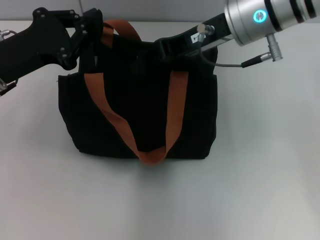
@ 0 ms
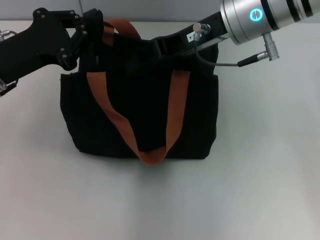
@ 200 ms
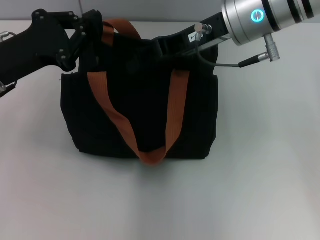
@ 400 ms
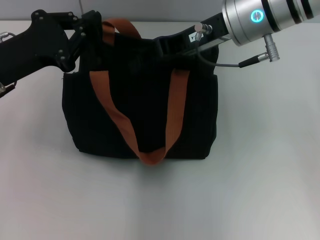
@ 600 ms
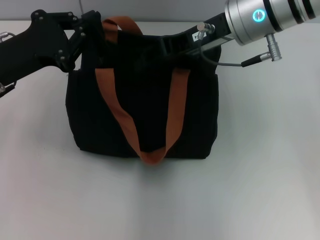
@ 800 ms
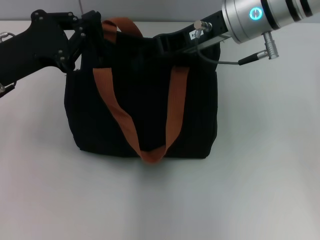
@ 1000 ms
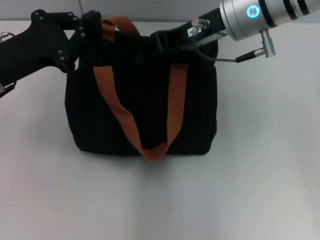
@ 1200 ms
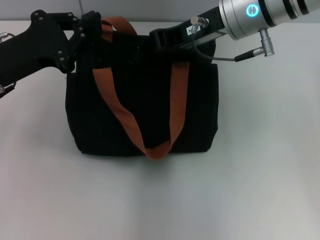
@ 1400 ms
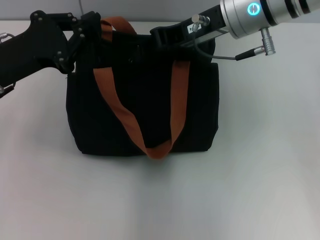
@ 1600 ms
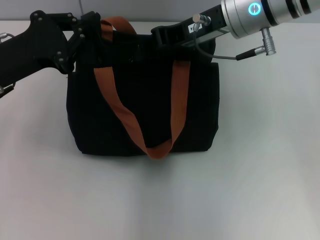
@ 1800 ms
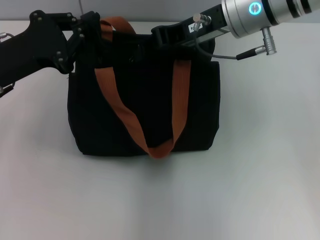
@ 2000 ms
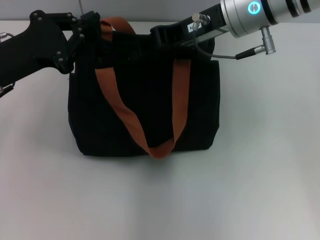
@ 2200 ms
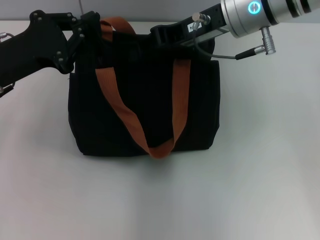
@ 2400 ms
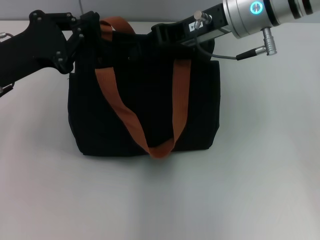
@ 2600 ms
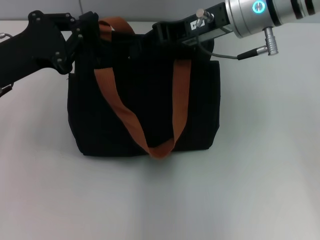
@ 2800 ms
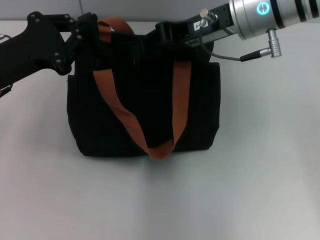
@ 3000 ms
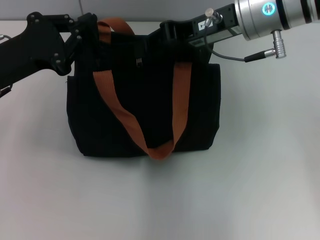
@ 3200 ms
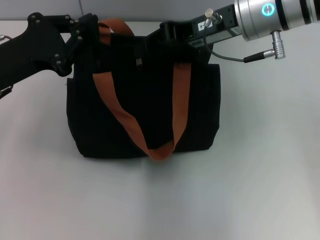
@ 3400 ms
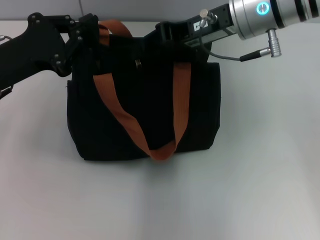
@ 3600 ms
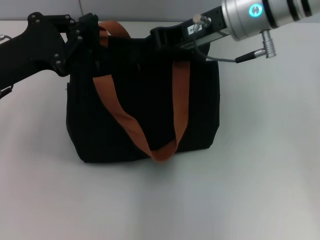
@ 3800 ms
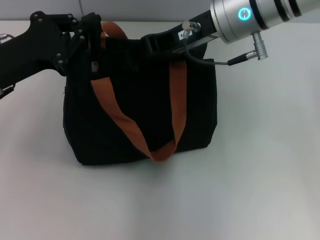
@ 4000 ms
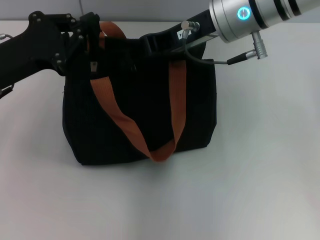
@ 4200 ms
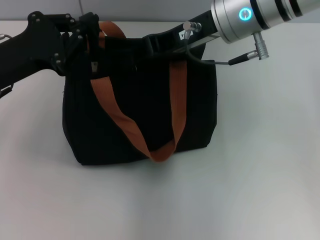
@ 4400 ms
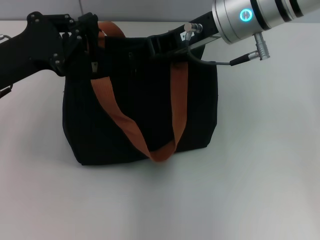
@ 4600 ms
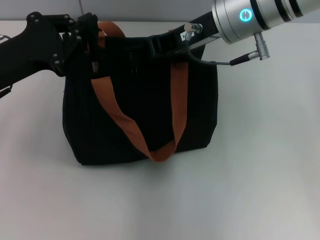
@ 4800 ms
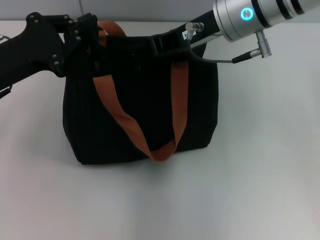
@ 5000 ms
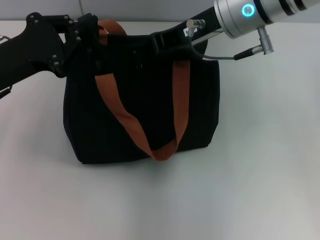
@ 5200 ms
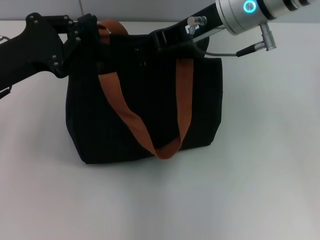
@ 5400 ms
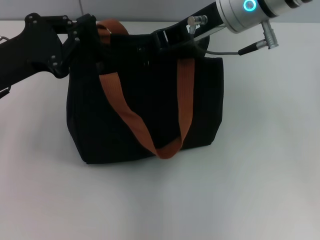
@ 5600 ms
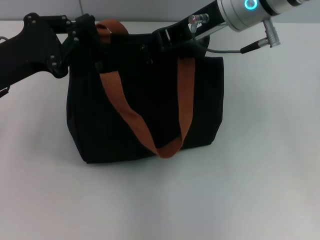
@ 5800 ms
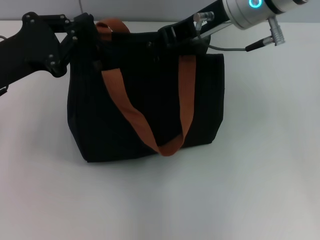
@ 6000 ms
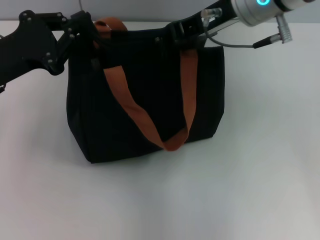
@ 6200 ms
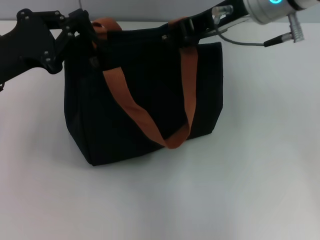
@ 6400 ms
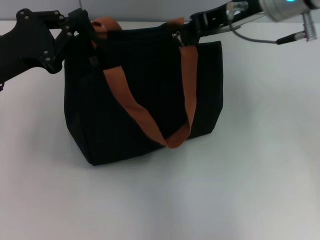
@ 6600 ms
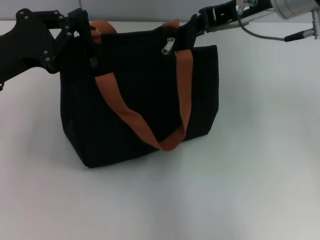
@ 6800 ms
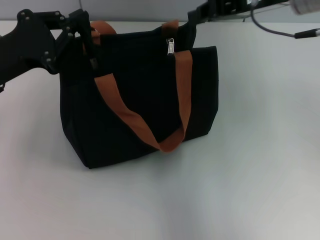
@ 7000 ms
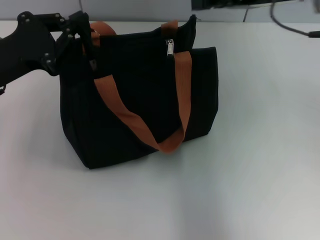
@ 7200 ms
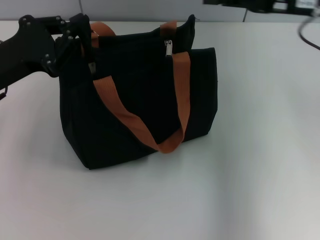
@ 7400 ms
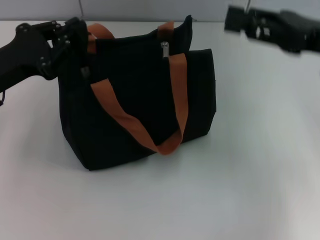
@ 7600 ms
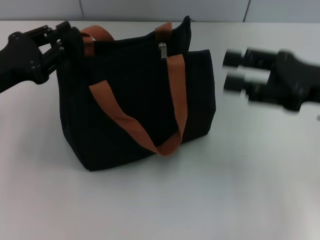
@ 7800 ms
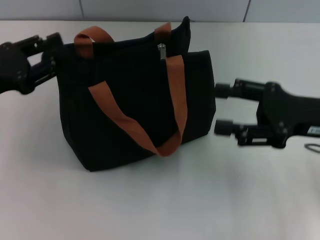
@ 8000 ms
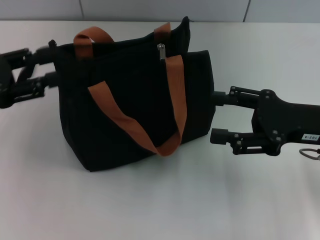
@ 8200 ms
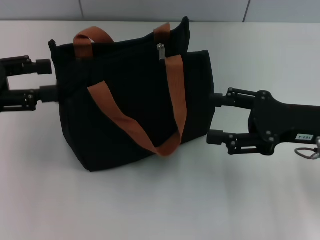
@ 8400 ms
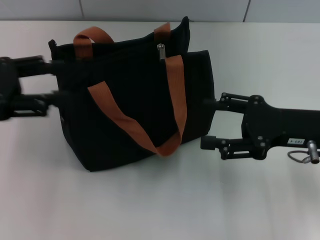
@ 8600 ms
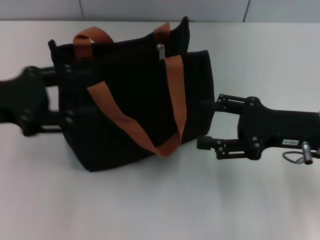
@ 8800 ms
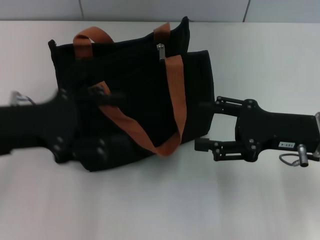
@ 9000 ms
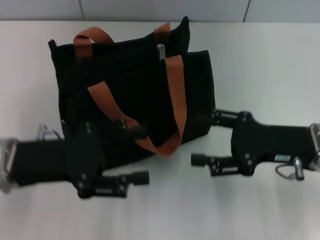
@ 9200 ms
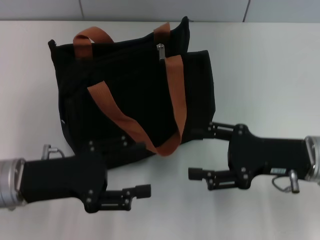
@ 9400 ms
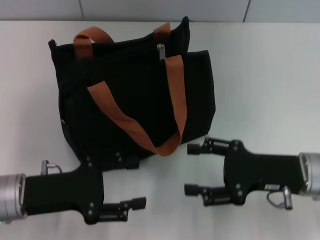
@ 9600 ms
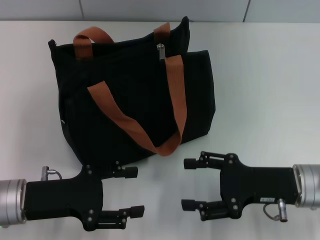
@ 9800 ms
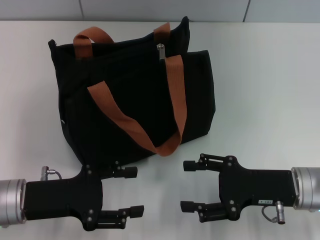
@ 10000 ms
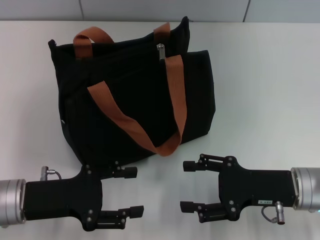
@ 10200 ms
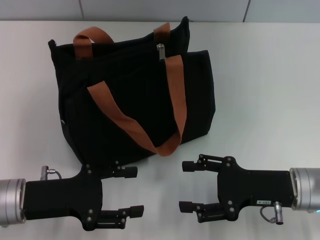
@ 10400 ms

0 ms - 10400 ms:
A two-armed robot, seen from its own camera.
Step, 0 ms - 6600 ms: Pull up the zipper with your right hand.
Step, 7000 ms - 8200 ms: Grab the zipper with your left hand.
0 ms - 1400 ms: The two grippers keep their place.
1400 ms - 4400 ms: The grippers move only a little.
4400 ms - 6000 ms: The right gripper closes.
6000 ms - 7400 ms: The right gripper moves to the right, roughly 15 cm.
7400 ms - 9000 ms: The right gripper shifts approximately 15 cm downward and backward, and opens. The left gripper opens.
9000 ms - 10400 ms: The right gripper shifts about 5 cm downward; the left gripper shifts approximately 10 cm downward and backward.

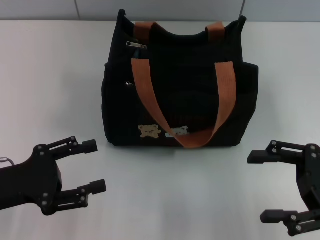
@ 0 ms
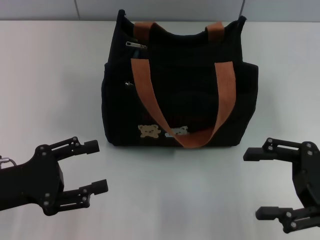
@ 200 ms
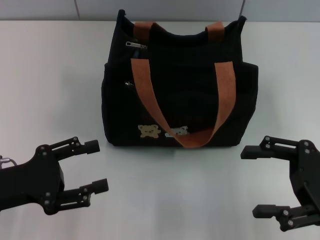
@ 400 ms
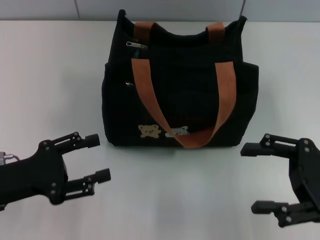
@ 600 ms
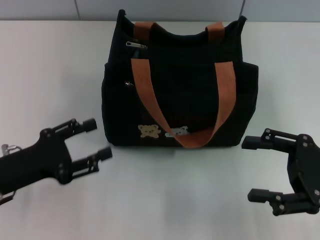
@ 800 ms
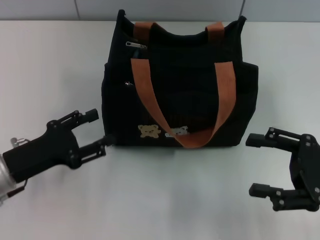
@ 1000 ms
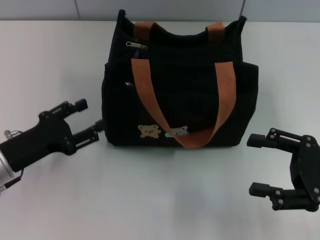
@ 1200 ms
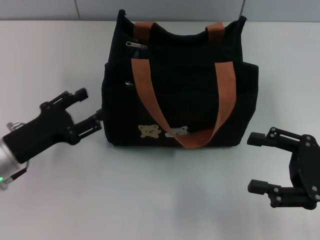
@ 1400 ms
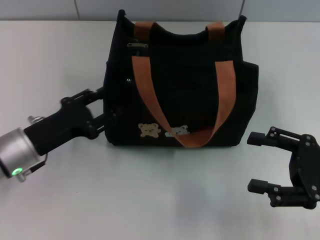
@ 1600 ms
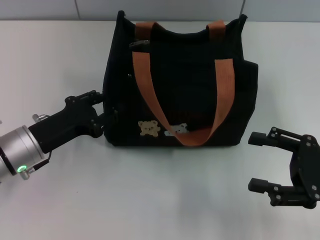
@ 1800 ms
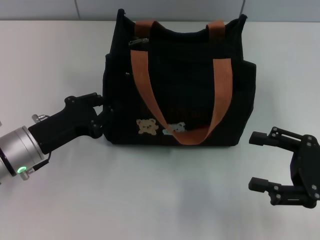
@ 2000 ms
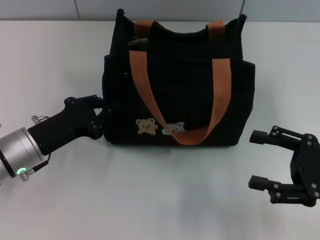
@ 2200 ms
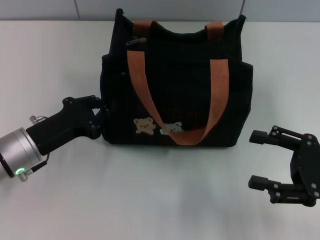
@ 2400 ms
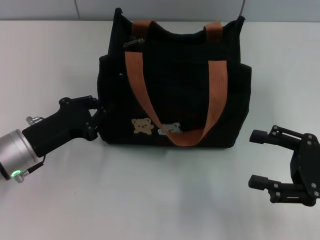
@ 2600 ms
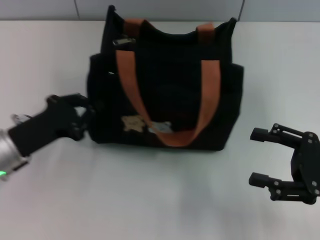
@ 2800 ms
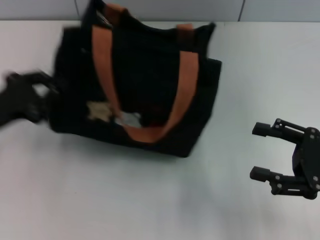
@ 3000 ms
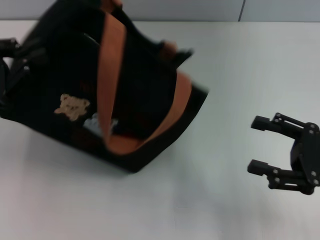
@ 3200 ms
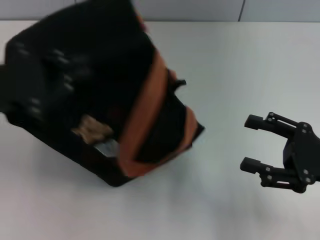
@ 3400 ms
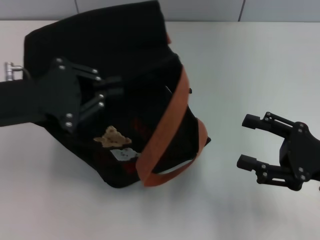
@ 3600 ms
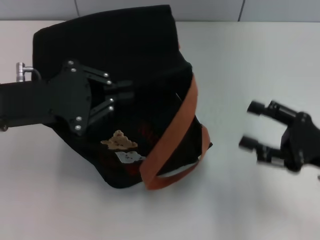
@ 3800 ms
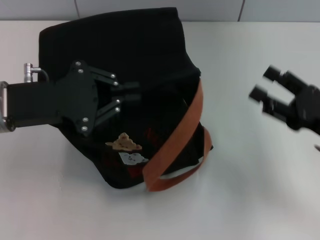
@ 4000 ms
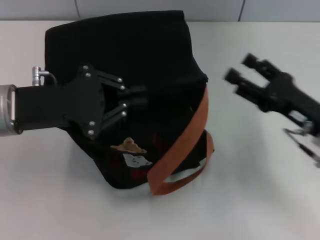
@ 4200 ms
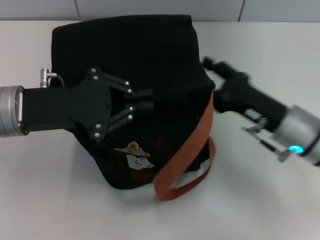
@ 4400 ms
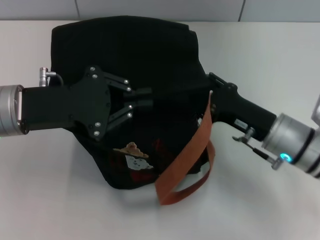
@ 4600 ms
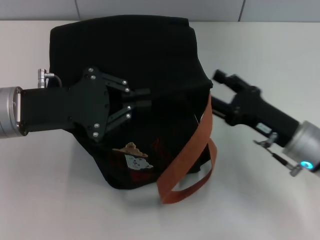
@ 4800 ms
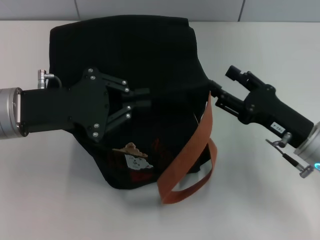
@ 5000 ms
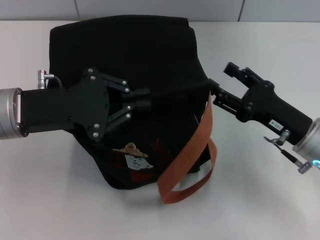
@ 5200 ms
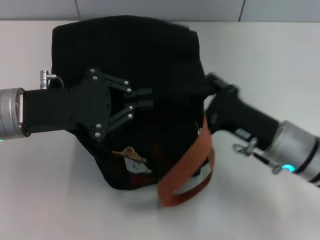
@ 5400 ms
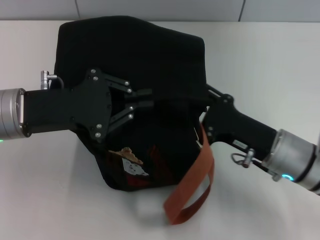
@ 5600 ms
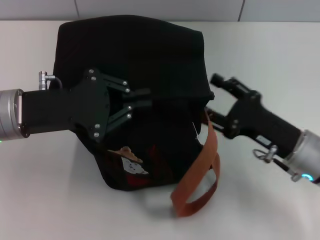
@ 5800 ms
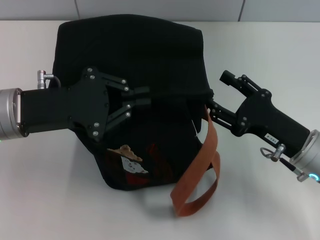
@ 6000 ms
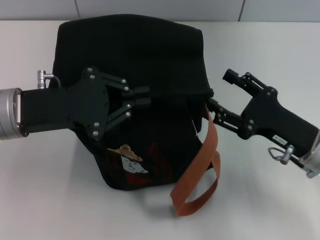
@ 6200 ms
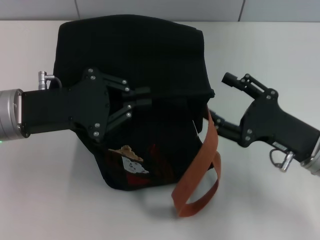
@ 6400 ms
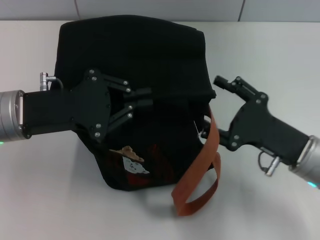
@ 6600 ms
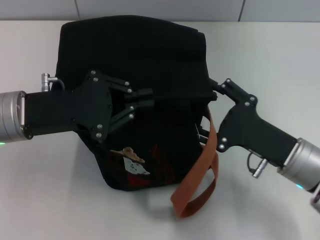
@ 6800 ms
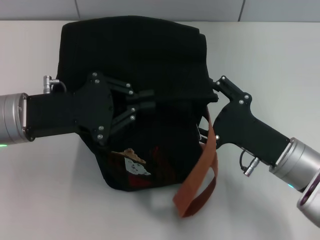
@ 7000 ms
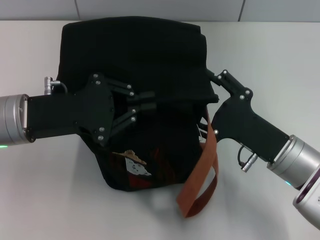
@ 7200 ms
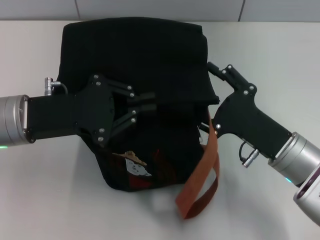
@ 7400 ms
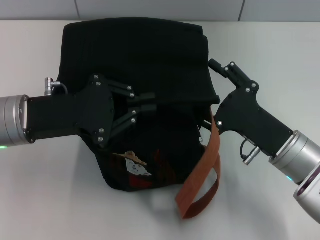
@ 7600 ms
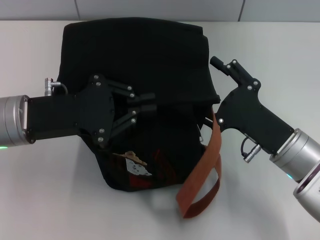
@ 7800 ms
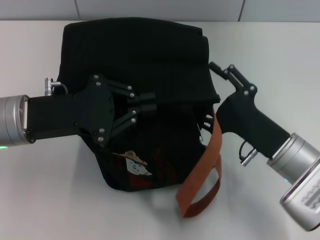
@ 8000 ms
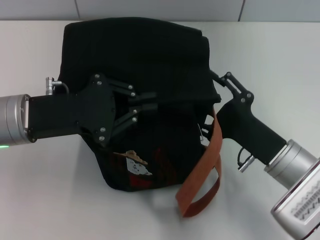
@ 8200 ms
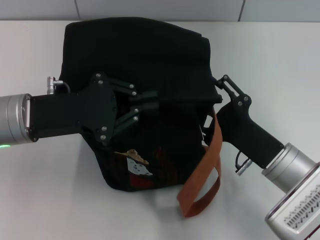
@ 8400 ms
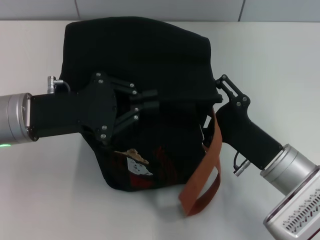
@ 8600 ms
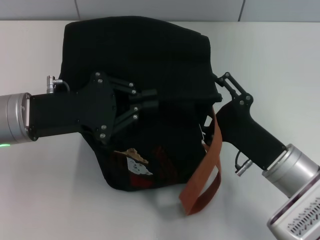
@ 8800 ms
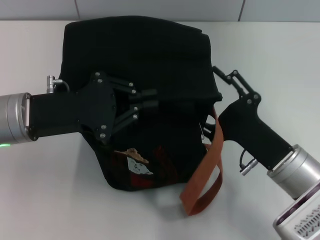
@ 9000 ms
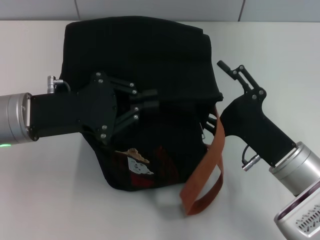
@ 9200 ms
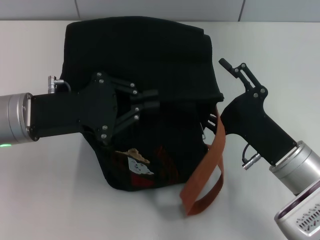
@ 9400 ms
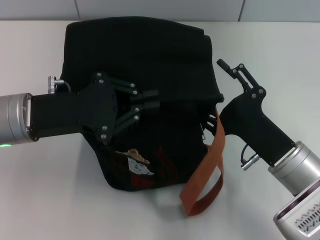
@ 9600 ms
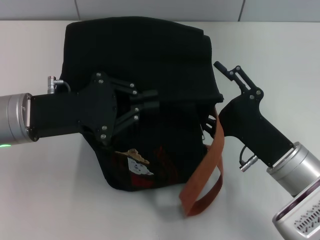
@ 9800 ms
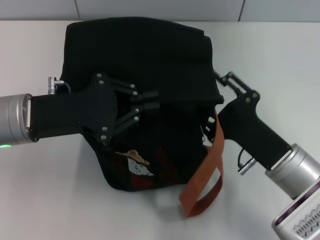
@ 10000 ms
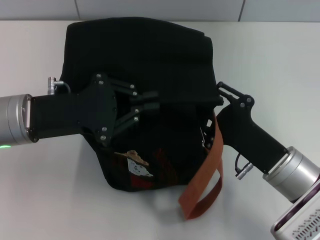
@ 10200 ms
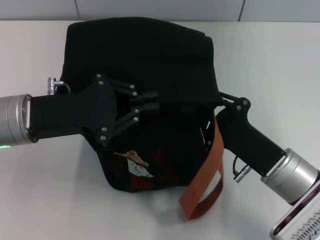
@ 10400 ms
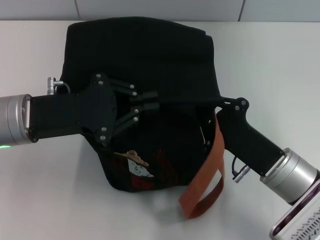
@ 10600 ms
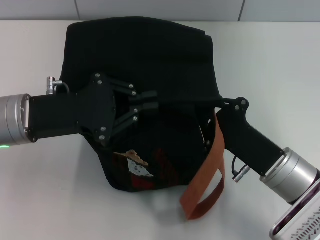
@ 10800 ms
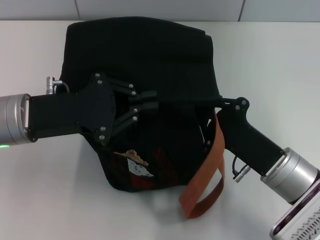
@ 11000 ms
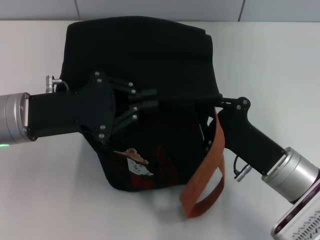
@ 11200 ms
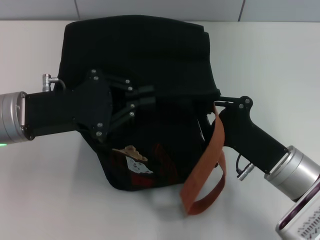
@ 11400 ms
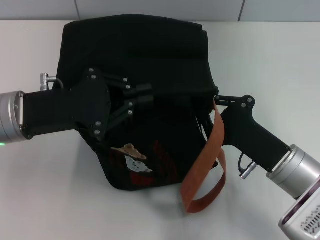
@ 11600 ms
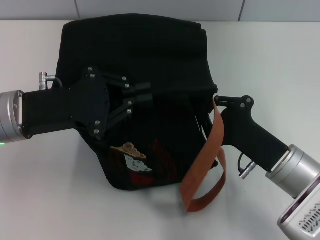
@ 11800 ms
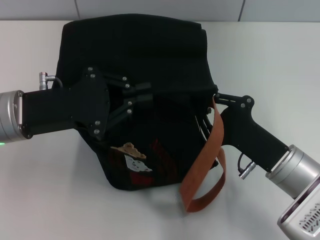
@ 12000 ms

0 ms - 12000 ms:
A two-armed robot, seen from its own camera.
0 ms - 1600 ms: The left gripper goes roughly 5 cm forward.
1600 ms - 3000 ms: The left gripper shifts some 5 cm to the left, and closes its fingers.
3000 ms - 4400 ms: The left gripper travels to the right and upward by approximately 10 cm, while the right gripper goes approximately 10 cm to the left and forward.
4400 ms - 6000 ms: The grippers move only a little.
7600 ms - 9000 ms: There are only small adjustments of the grippers.
9000 ms - 10400 ms: The right gripper closes its fingers.
10400 ms - 12000 ms: The right gripper closes.
